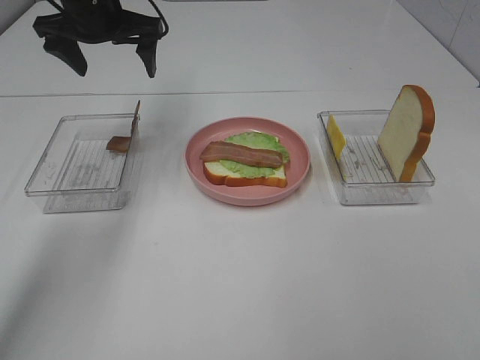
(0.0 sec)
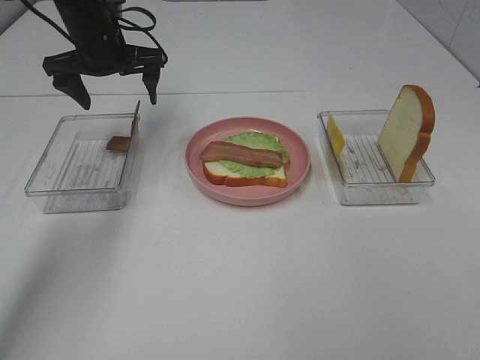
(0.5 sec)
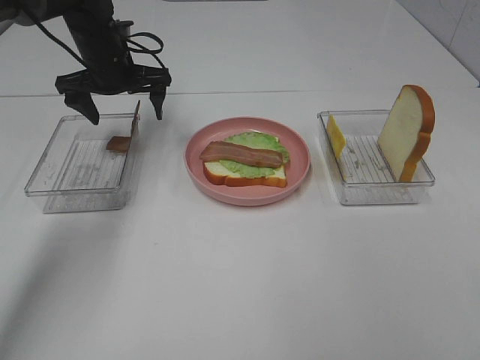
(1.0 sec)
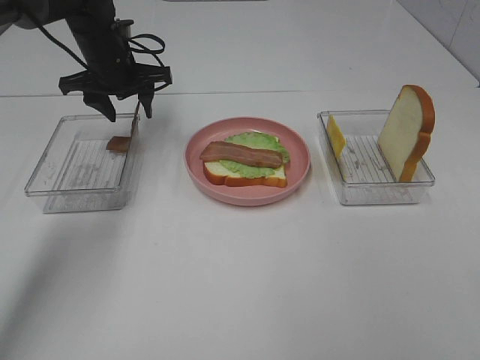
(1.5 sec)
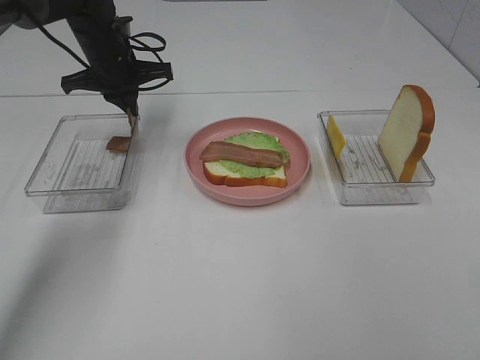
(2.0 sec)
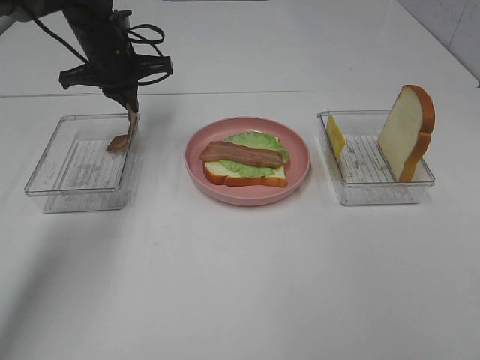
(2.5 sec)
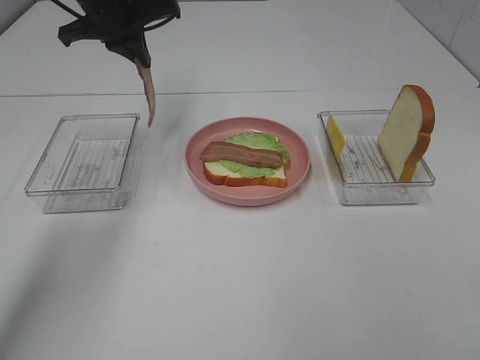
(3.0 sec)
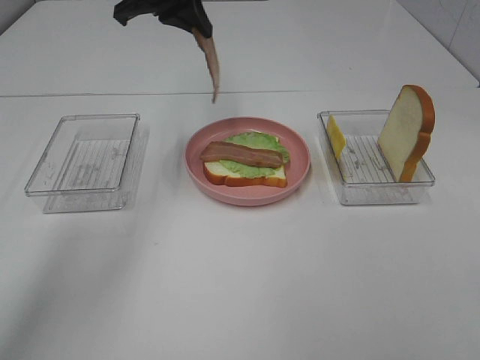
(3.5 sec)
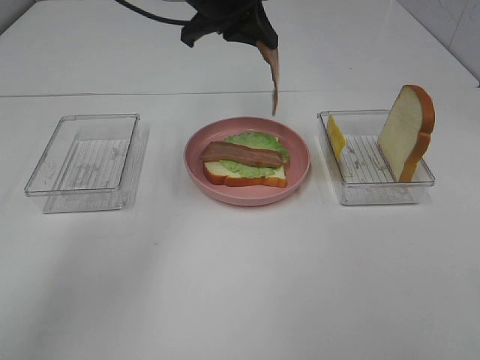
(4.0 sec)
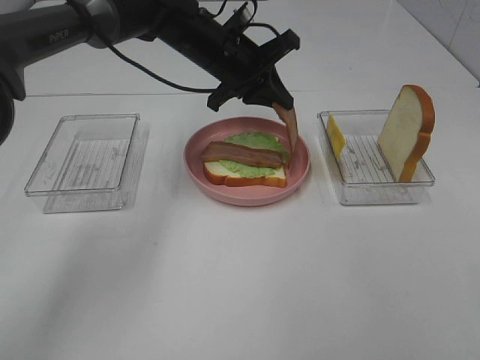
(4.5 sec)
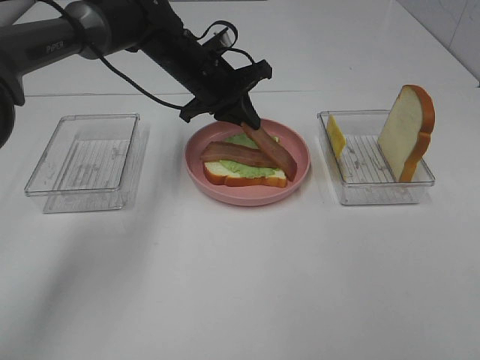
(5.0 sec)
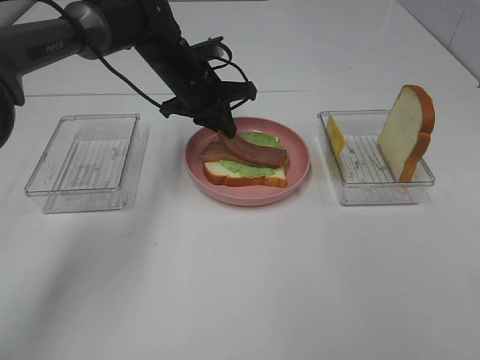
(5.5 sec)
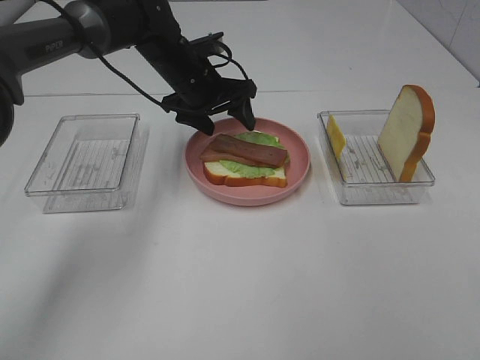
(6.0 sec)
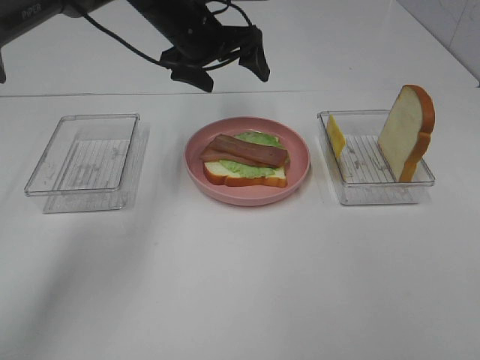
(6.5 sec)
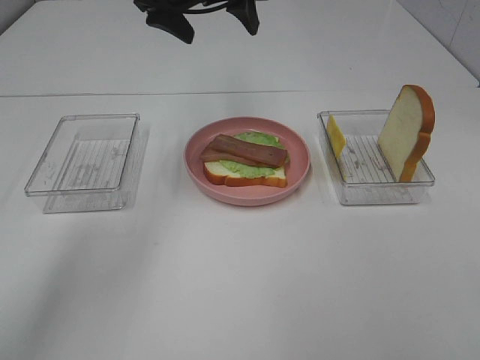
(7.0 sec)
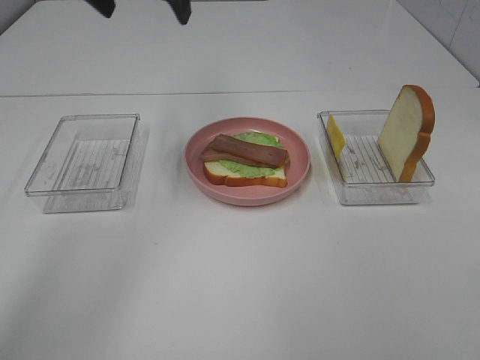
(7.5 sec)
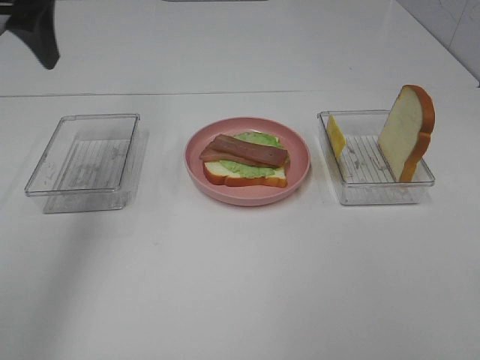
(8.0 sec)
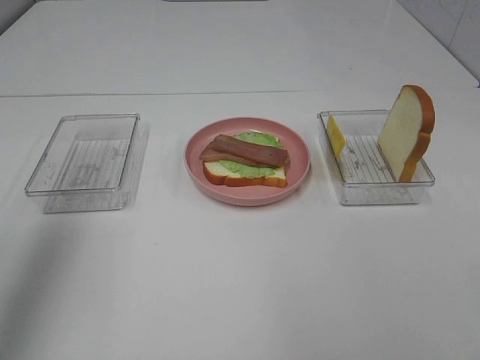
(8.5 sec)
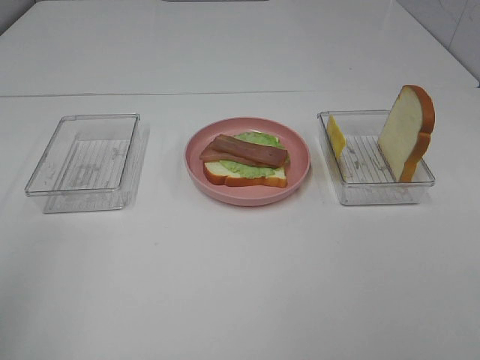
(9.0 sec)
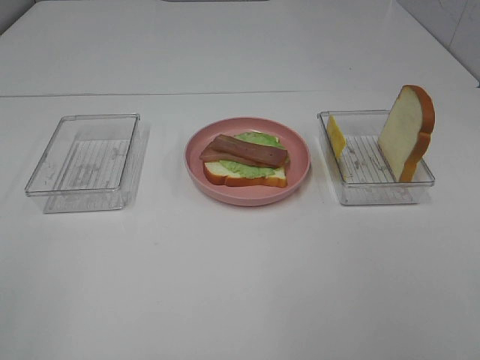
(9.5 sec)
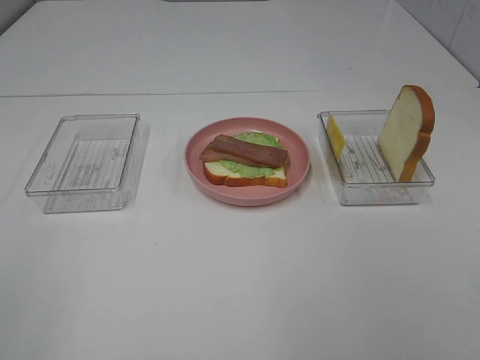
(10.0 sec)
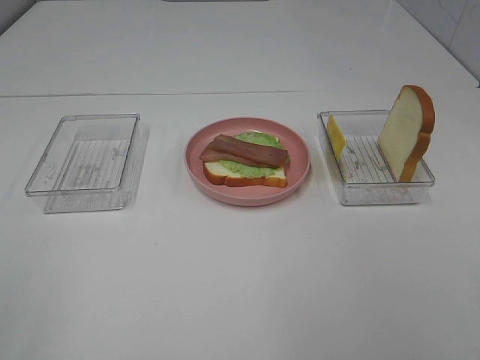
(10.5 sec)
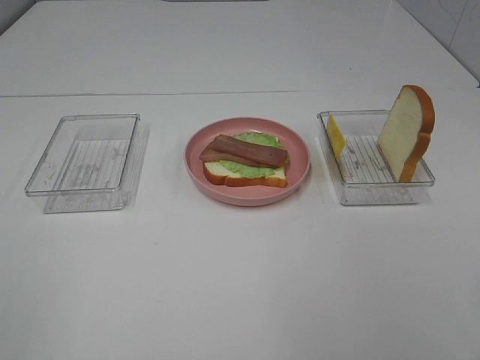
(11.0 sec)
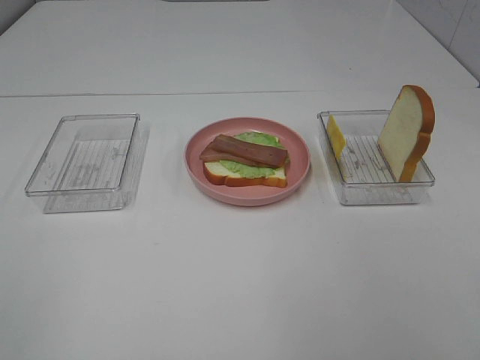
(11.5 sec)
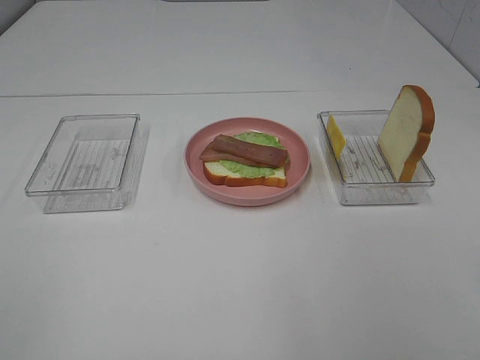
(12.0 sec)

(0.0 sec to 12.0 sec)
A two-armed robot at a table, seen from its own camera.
Task of the whole recording: Make sandwiches.
Step, 0.0 sec - 2.0 sec: Left hand:grab the bacon.
Step, 2.5 sec - 6.0 sec: Left hand:place bacon on bacon.
0.0 sec - 2.0 sec: The left gripper goes some 10 cm downward, and closes its fingers.
2.0 sec - 4.0 sec: The left gripper travels to the right, upward and backward by about 20 cm.
4.0 sec - 6.0 sec: The left gripper shifts roughly 15 cm downward, and opens up.
6.0 sec - 8.0 sec: The left gripper moves upward, to the left and backward, roughly 30 cm.
8.0 sec - 10.0 sec: The left gripper is displaced backward by about 30 cm.

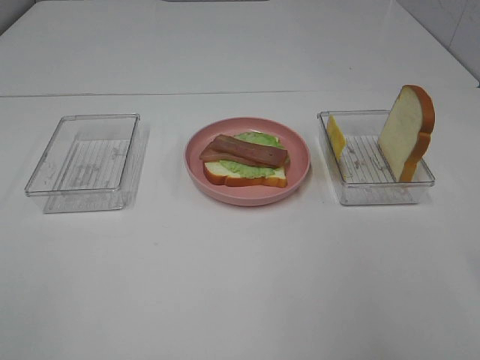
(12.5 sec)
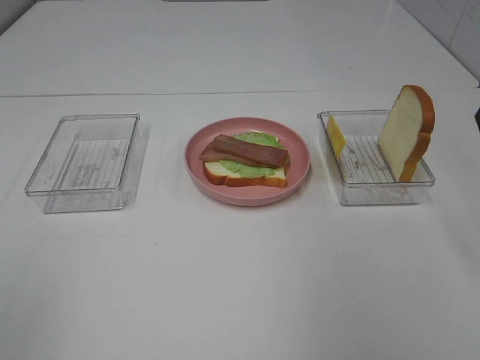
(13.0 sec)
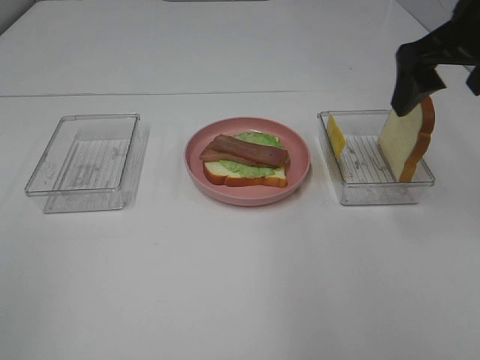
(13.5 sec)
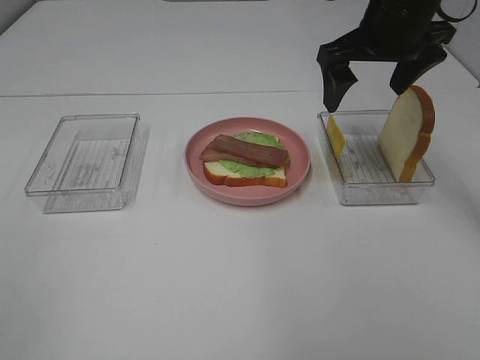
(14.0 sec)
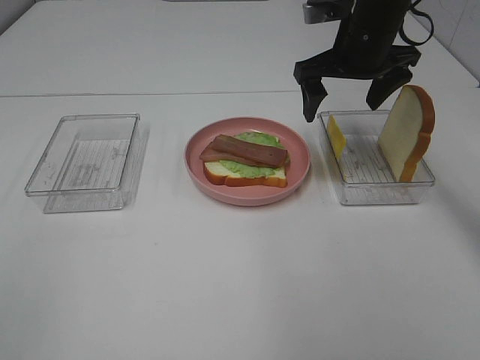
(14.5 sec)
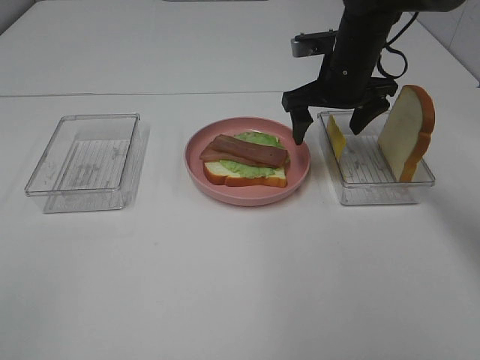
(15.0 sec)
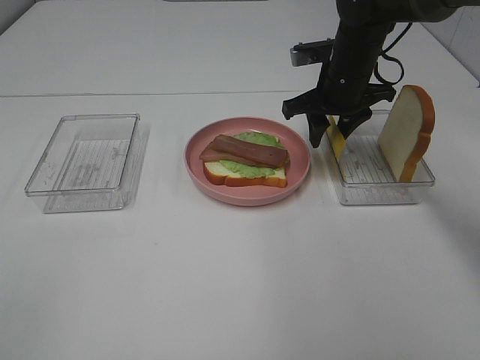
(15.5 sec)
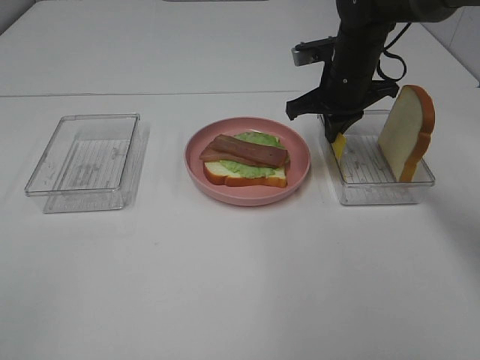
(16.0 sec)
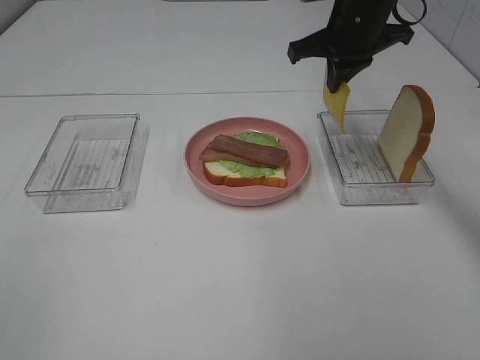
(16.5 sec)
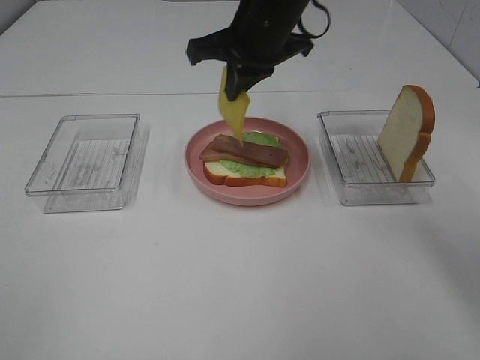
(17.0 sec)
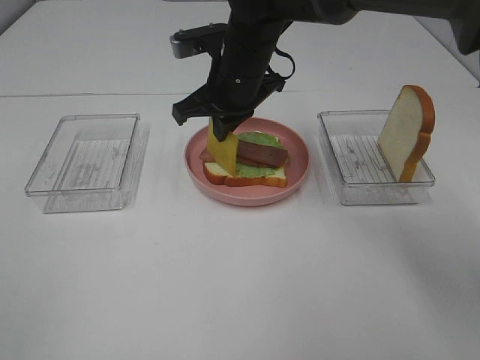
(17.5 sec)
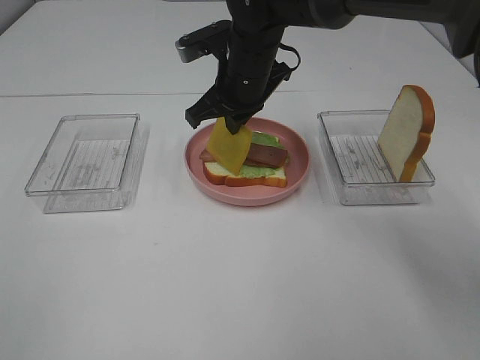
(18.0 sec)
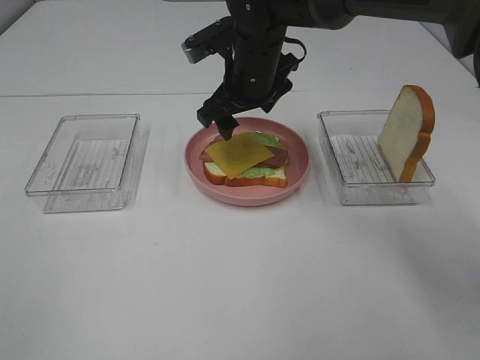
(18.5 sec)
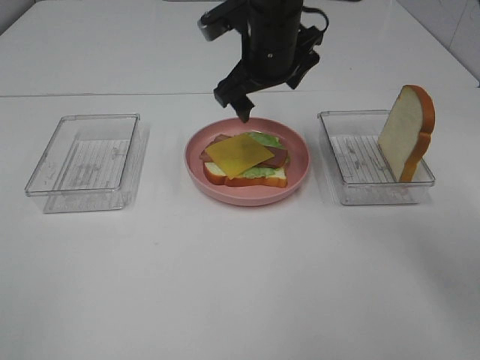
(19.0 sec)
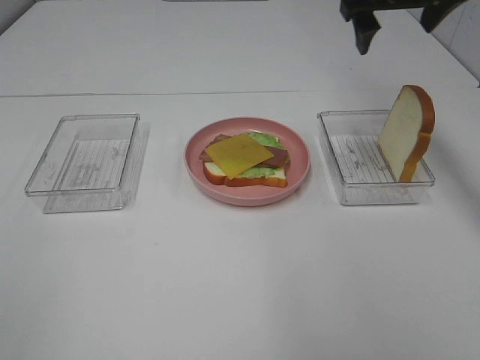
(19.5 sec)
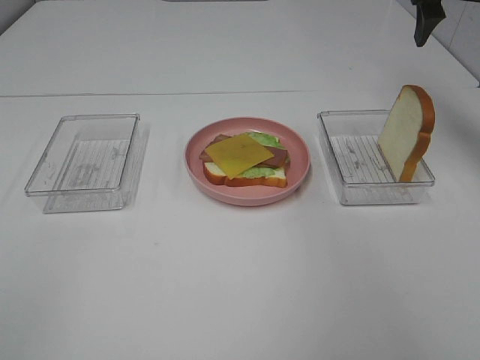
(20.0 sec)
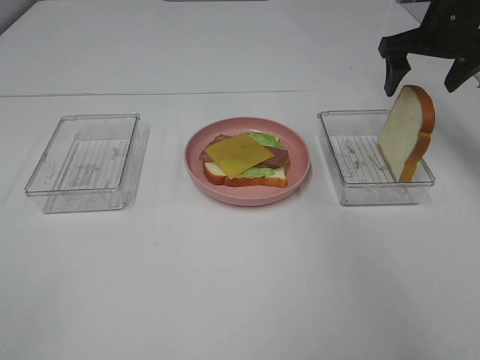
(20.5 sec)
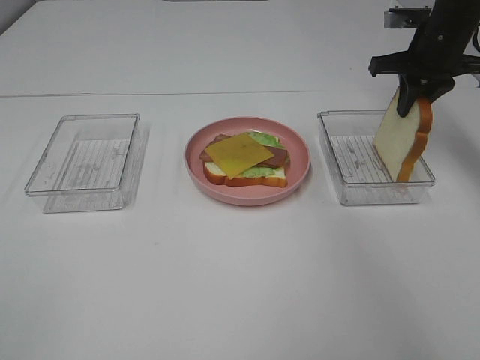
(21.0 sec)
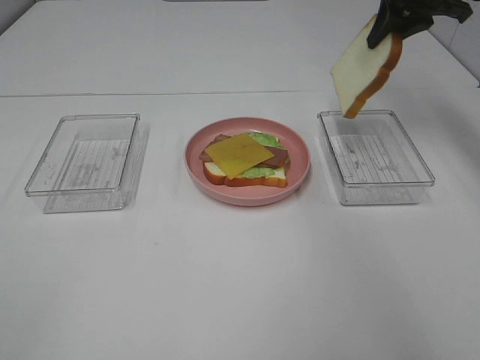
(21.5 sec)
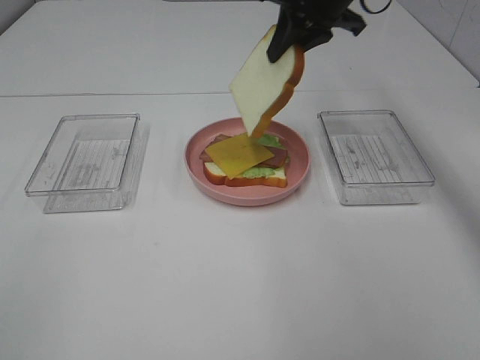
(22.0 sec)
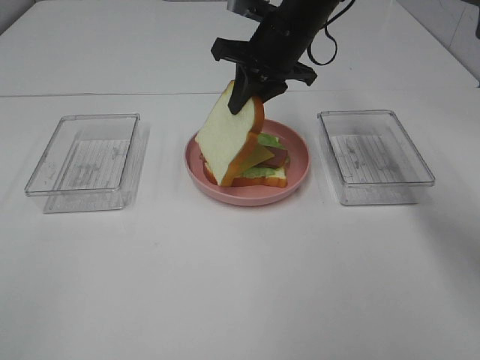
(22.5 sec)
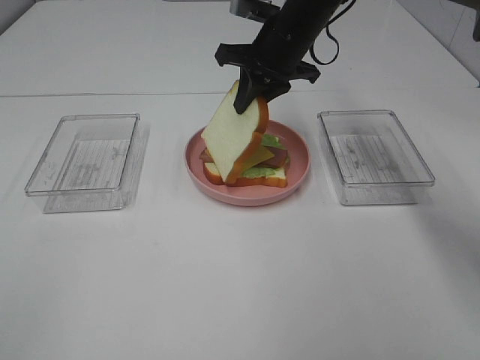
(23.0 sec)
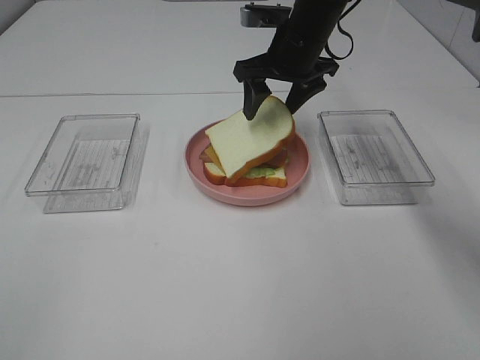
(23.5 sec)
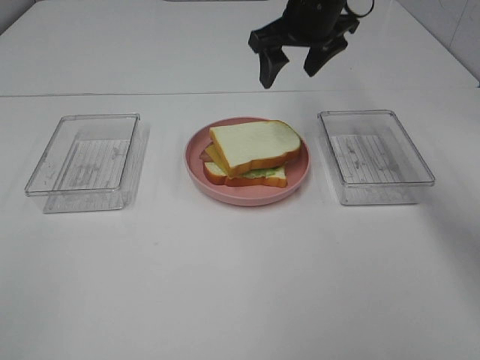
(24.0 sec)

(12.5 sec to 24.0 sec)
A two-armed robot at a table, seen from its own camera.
Task of the whole recording: Make sandwiches.
Step, 12.5 sec - 16.0 sec: Right hand:grab the cheese slice.
Step, 16.5 sec - 18.5 sec: Right hand:place the cheese slice on top of the bacon.
Step, 19.0 sec - 21.0 sec: Right hand:grab the bread slice.
Step, 21.5 sec - 23.5 sec: Right hand:place the bread slice on the cheese slice.
12.5 sec - 14.5 sec: The right gripper is displaced forward and to the left by approximately 35 cm.
14.5 sec - 16.5 sec: The right gripper reaches roughly 5 cm downward, then returns, and closes.
16.5 sec - 18.5 sec: The right gripper moves to the left and downward, roughly 15 cm, and opens its fingers.
18.5 sec - 20.0 sec: The right gripper goes some 30 cm to the right and upward.
20.0 sec - 22.0 sec: The right gripper heads to the left, covering approximately 15 cm, and closes.
22.0 sec - 24.0 sec: The right gripper opens up.

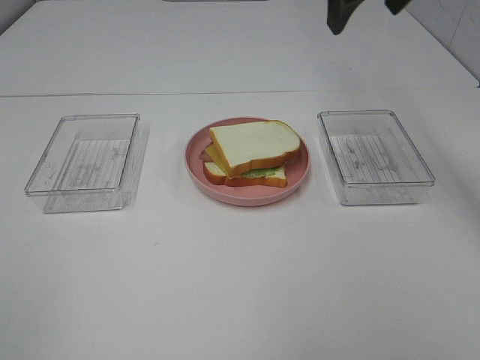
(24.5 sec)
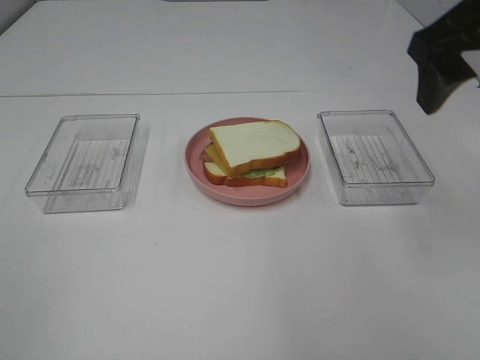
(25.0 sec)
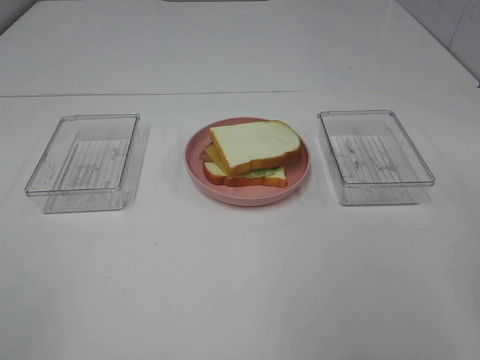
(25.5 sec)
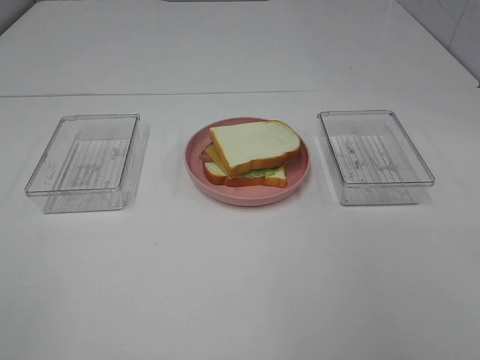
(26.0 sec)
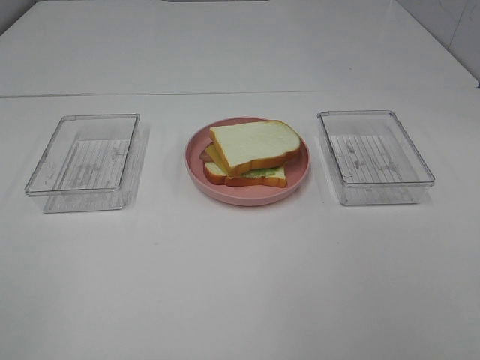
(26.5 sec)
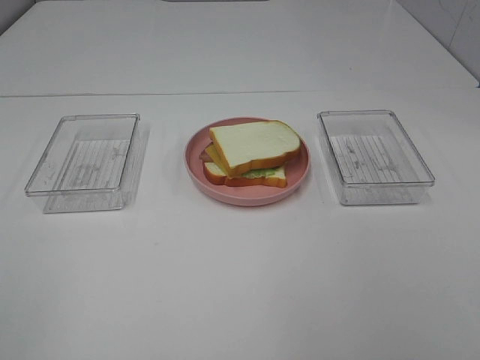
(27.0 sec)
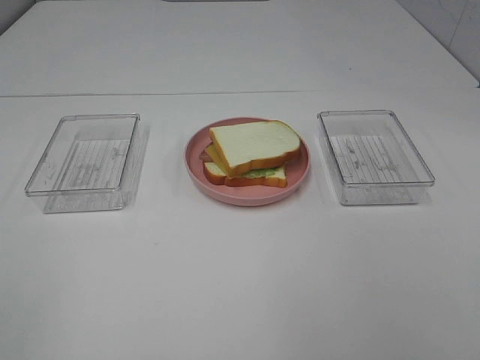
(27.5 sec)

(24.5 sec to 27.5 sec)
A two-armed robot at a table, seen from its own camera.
Task of the whole recording: Make sandwiches.
24.5 sec - 26.0 sec: The right gripper shifts about 35 cm backward and to the right.
